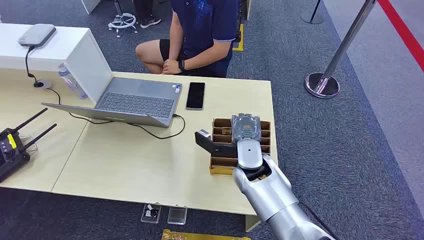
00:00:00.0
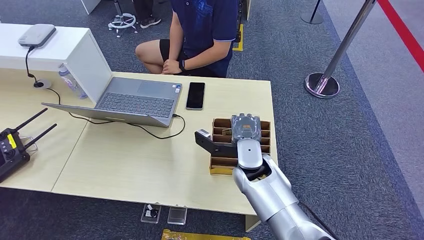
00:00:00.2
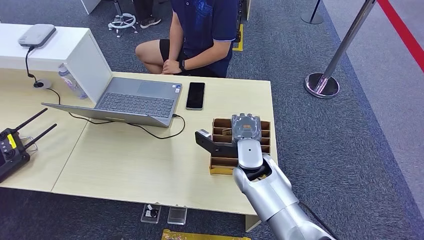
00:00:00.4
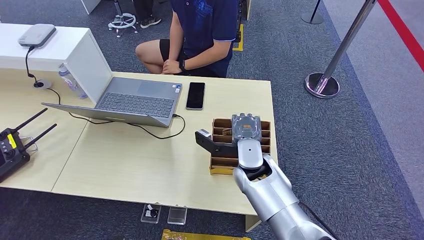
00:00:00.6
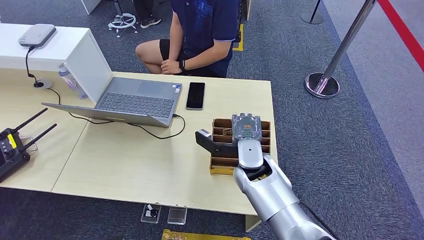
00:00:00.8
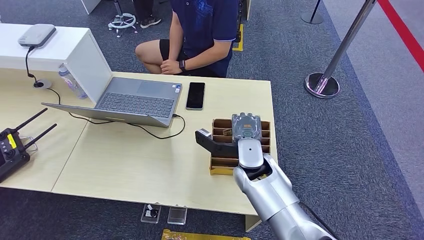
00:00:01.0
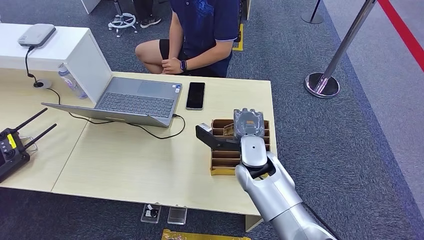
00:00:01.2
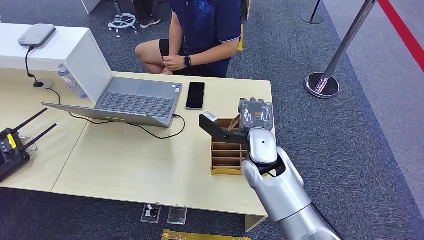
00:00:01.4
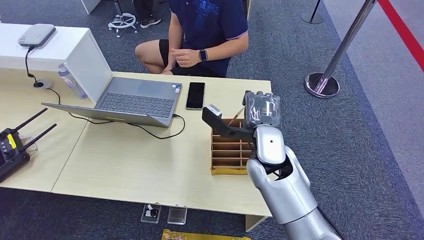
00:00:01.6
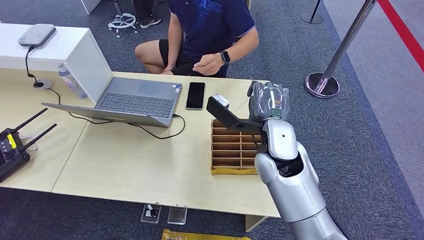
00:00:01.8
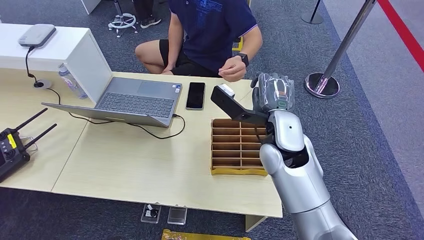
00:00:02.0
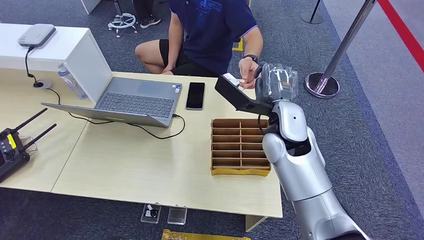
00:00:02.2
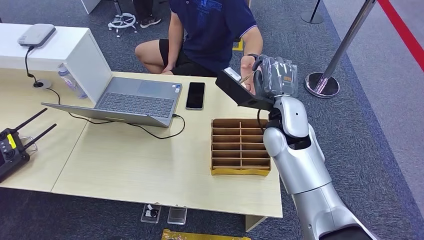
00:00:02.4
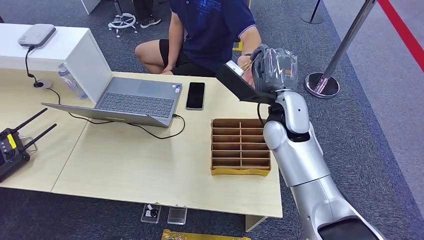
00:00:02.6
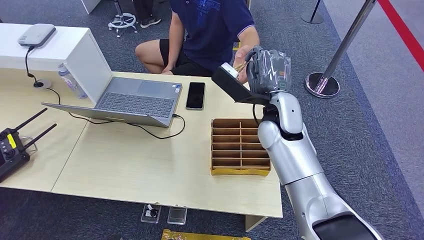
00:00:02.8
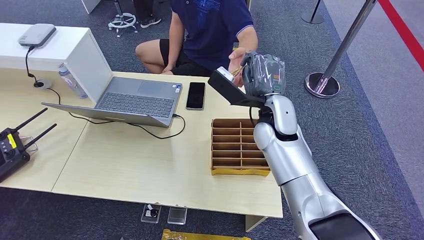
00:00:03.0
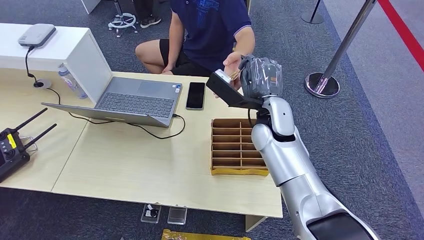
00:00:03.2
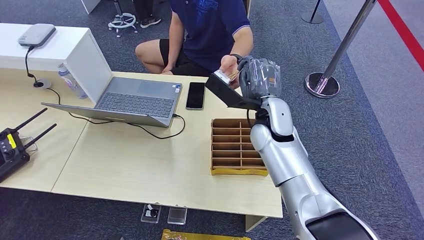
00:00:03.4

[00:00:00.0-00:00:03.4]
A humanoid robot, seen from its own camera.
Step, 00:00:00.0 to 00:00:02.4: Pick up the room card from the card holder.
Step, 00:00:02.6 to 00:00:03.4: Hand the room card to the target.
00:00:01.6 to 00:00:03.4: The right hand goes about 5 cm forward.

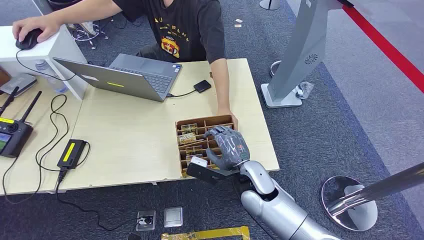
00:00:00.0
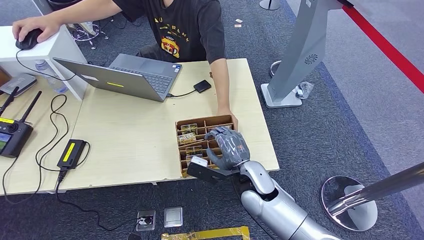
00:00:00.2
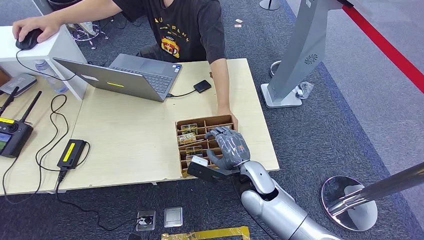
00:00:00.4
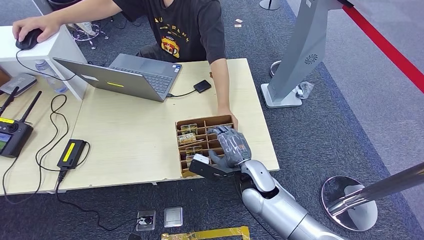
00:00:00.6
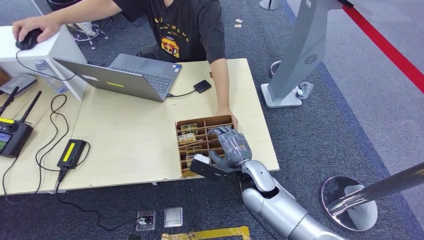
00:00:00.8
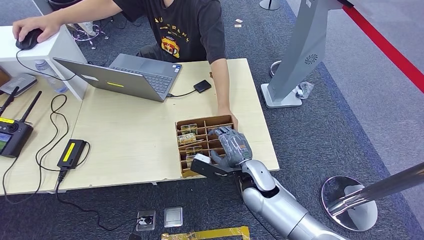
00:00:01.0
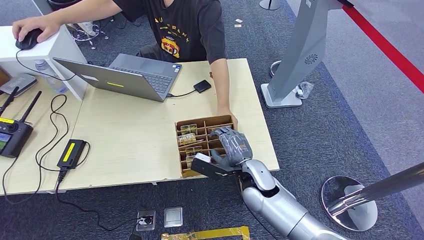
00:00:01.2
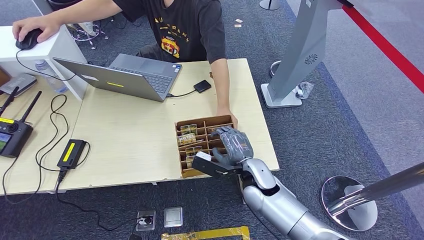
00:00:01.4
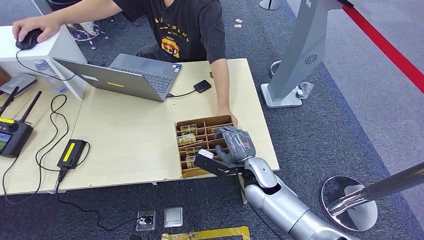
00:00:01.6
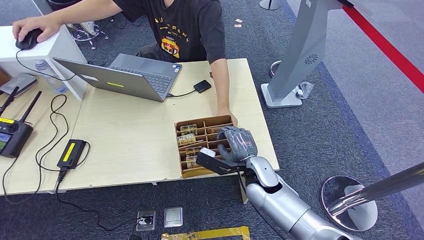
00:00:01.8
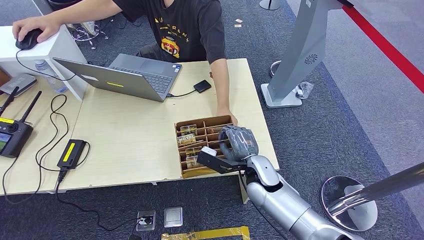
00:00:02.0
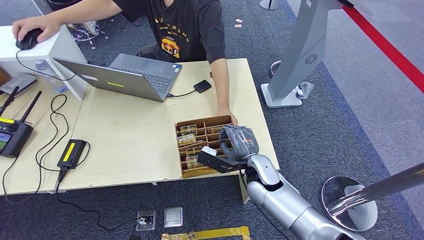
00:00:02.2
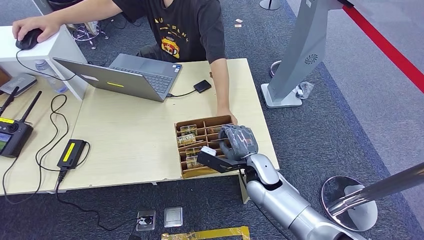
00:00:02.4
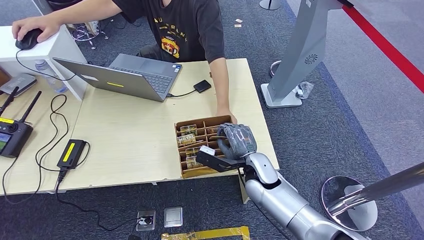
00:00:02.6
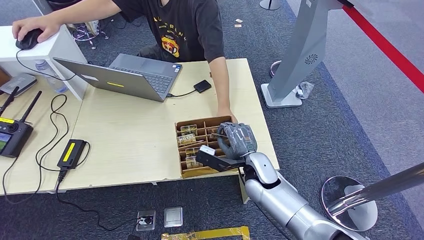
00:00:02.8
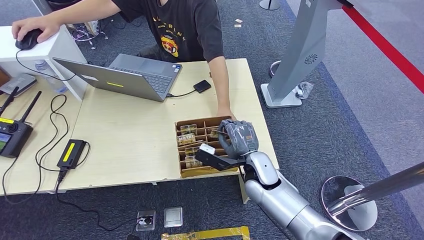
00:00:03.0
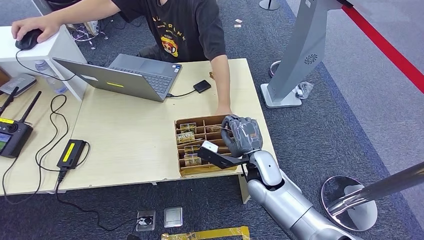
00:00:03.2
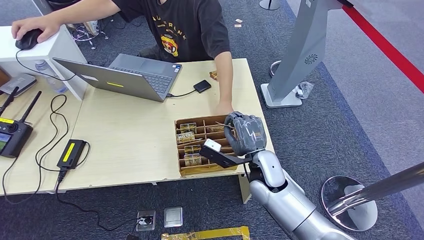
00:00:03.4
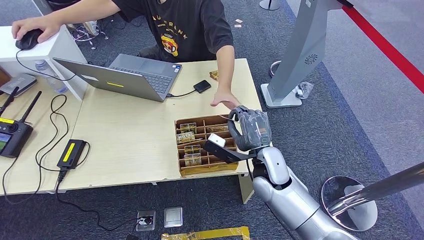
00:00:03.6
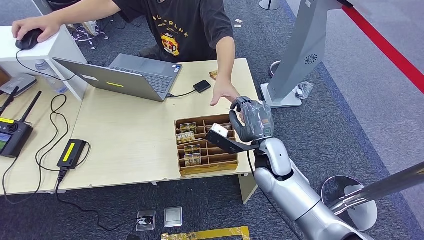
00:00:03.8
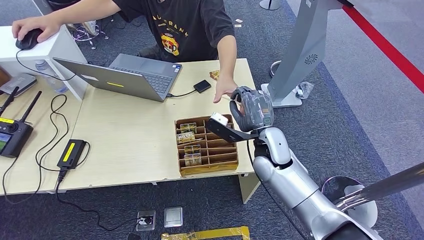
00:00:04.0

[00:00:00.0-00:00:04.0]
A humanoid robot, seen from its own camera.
Step, 00:00:00.0 to 00:00:02.6: Pick up the room card from the card holder.
Step, 00:00:02.8 to 00:00:04.0: Hand the room card to the target.
00:00:01.4 to 00:00:02.6: The hands stay close to where they were, moving slightly.
00:00:02.6 to 00:00:04.0: The right hand is displaced upward by approximately 10 cm.
